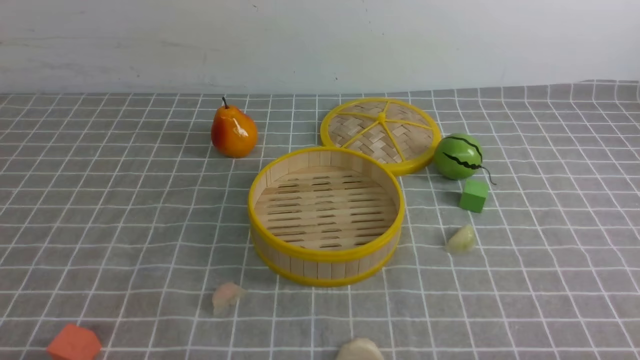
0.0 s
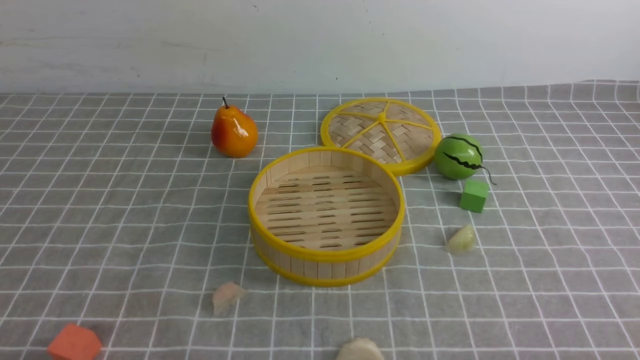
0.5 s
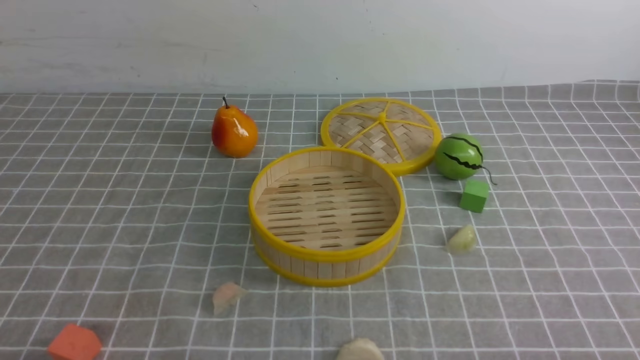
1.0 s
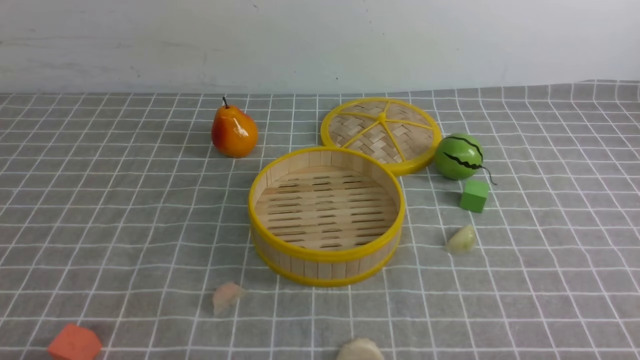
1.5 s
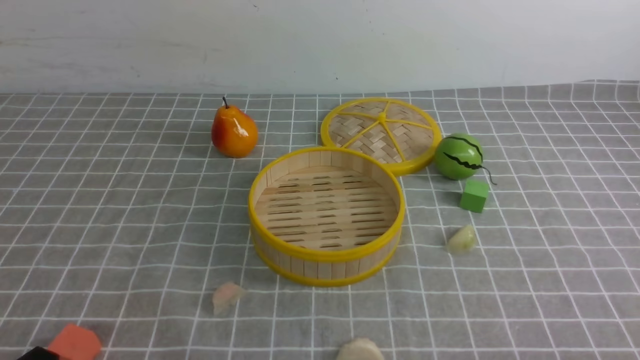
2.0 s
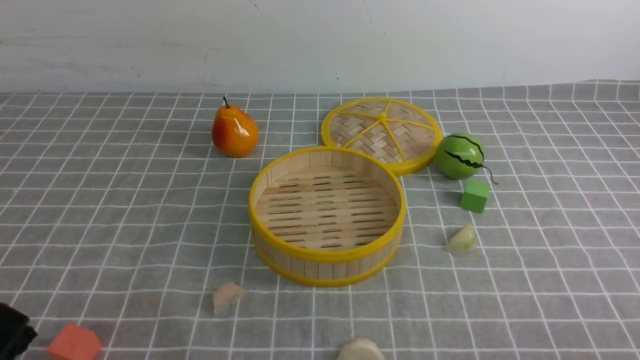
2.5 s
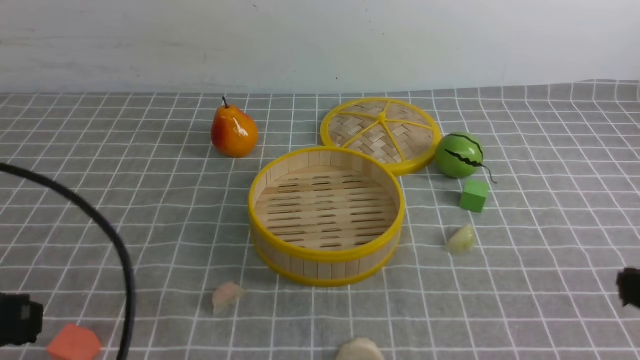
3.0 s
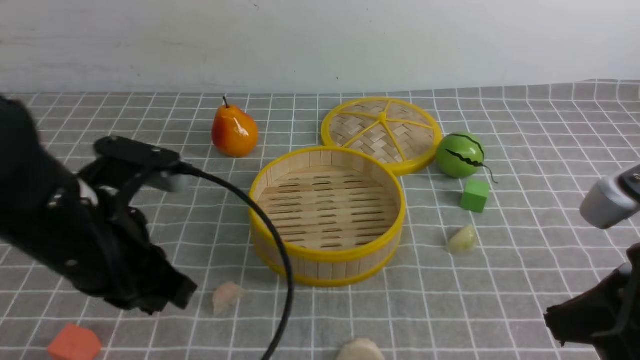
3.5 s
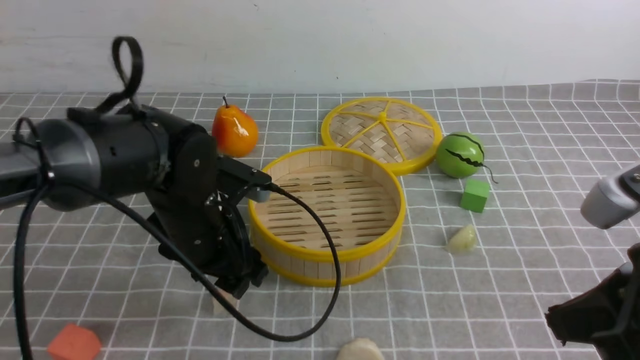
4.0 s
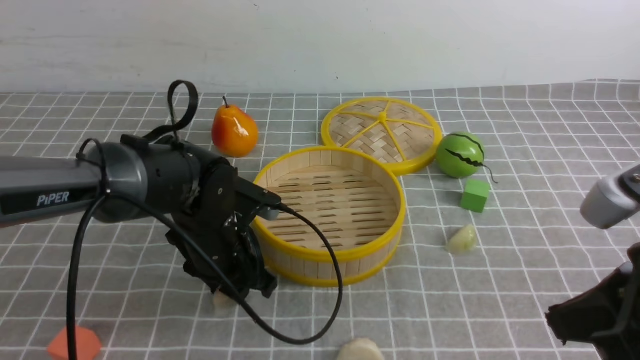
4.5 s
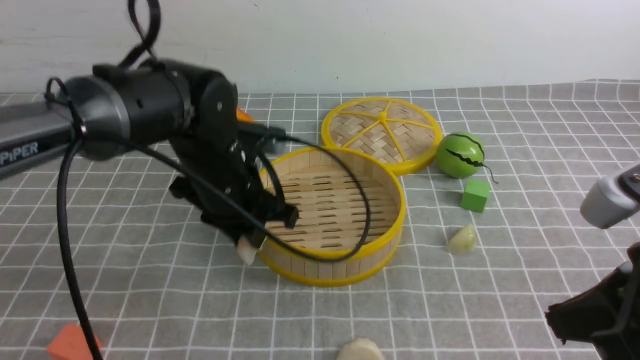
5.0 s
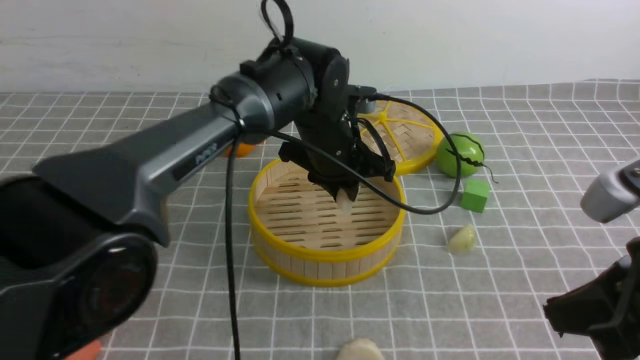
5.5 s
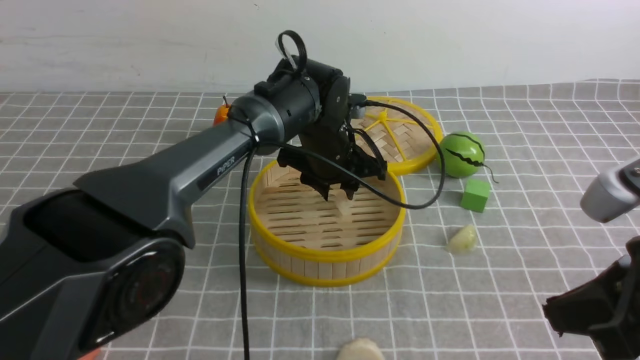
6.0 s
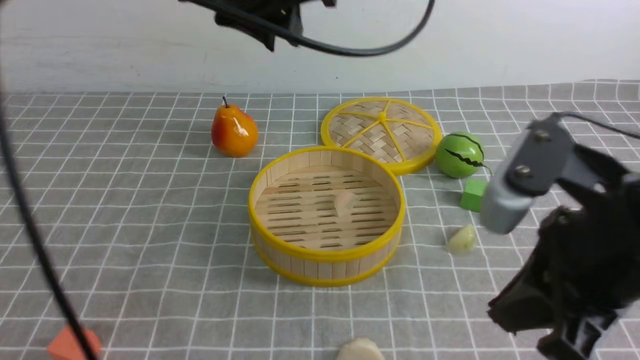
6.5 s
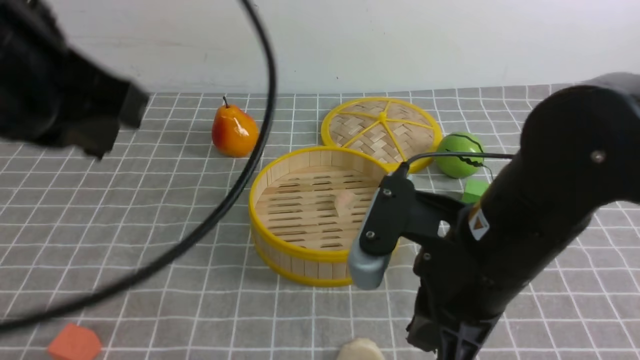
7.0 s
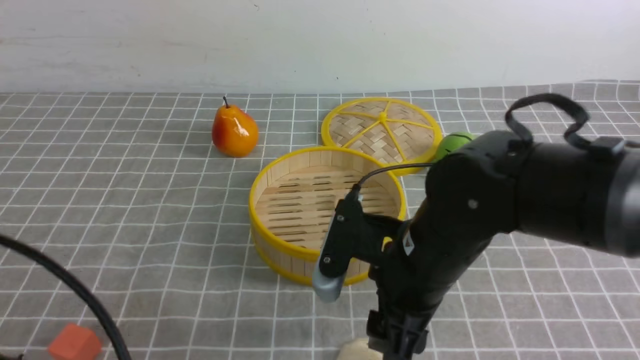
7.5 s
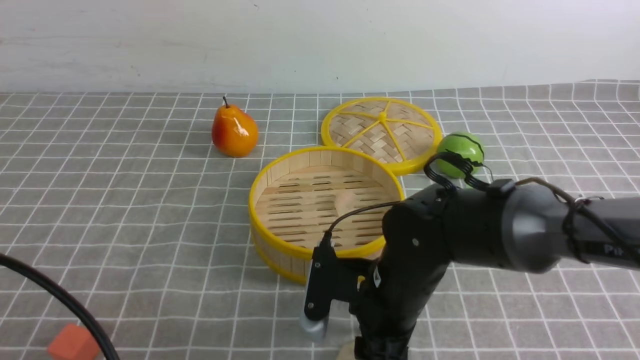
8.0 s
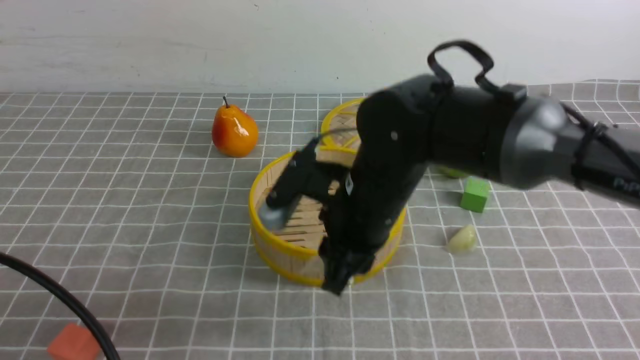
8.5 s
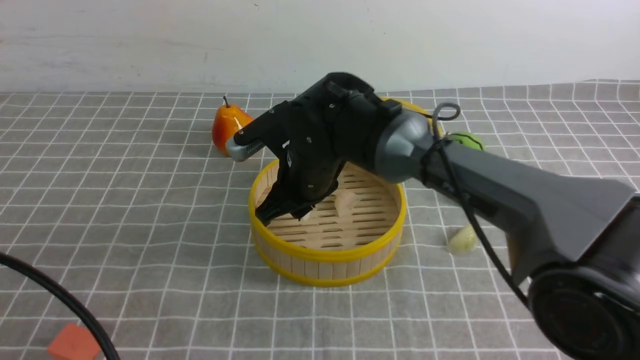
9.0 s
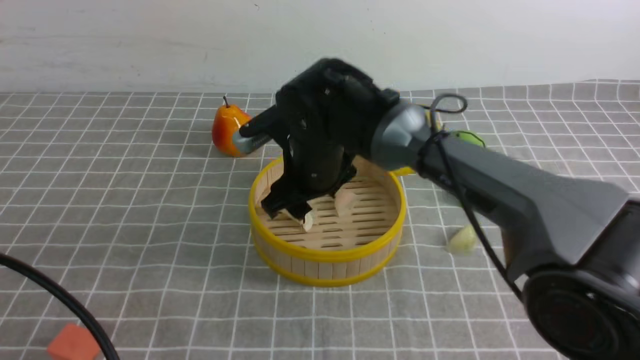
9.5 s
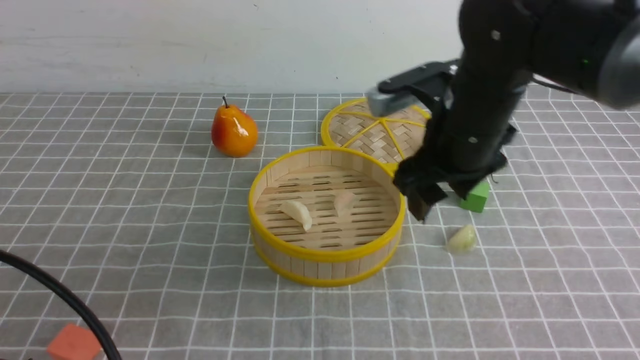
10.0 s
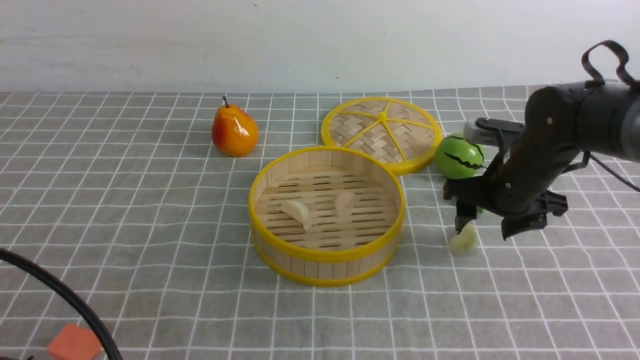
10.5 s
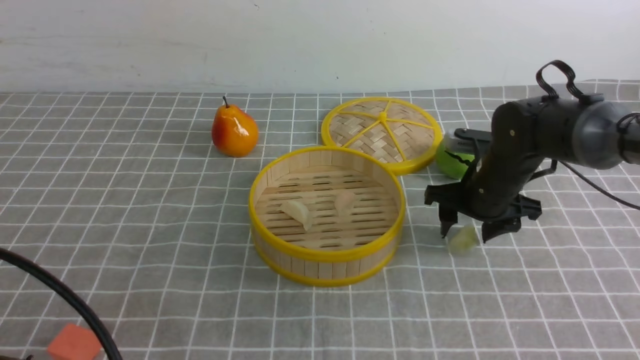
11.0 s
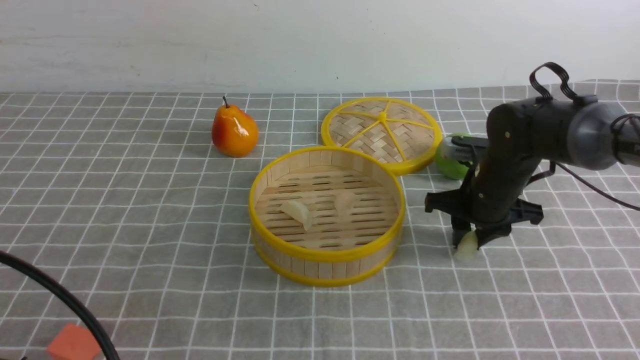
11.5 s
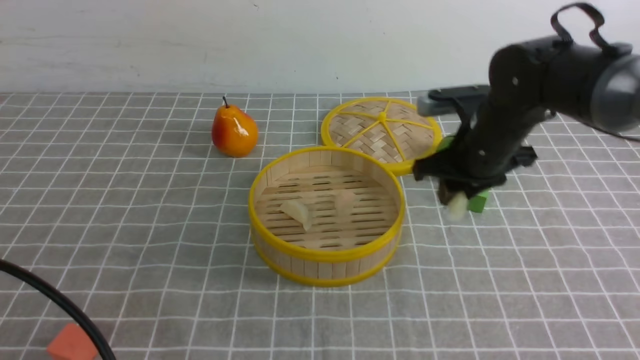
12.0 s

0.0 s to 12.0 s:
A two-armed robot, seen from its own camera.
Task of the whole recording: put the dumplings into the steamer on the table with the grey tablecloth.
Step, 0.0 to 4.5 s: use the left arm to grab a dumpling.
Step, 5.0 to 6.0 s: use the left arm to put the dumpling into the steamer.
Step, 6.5 to 8.0 s: use the right arm to grab a dumpling.
Step, 8.5 to 9.5 s: use the right arm to put the dumpling into the steamer.
Step, 10.0 to 11.5 s: use the right arm to grab a dumpling.
2.0 to 4.0 s: The right gripper travels upward, forward and to the left by approximately 20 cm, and closes. The left gripper travels forward and to the right by about 30 cm, and opens up.
4.0 to 6.0 s: The left gripper is displaced forward and to the right by some 15 cm, and closes and opens again.
6.0 to 8.0 s: The right gripper is displaced to the left, downward and forward by about 25 cm, and opens, while the left gripper is displaced backward and to the left by roughly 40 cm, and closes its fingers.
8.0 to 10.0 s: The right gripper goes approximately 15 cm upward, forward and to the right.
10.0 to 12.0 s: The right gripper travels downward by about 5 cm, and closes.

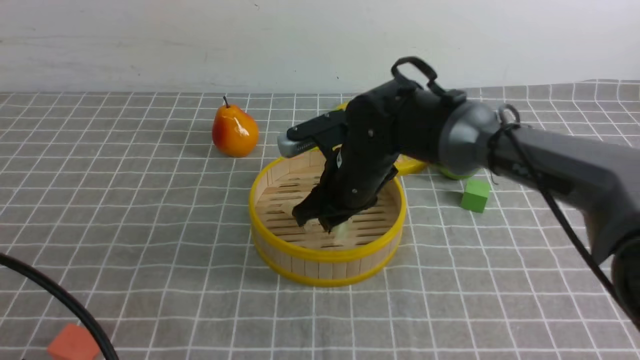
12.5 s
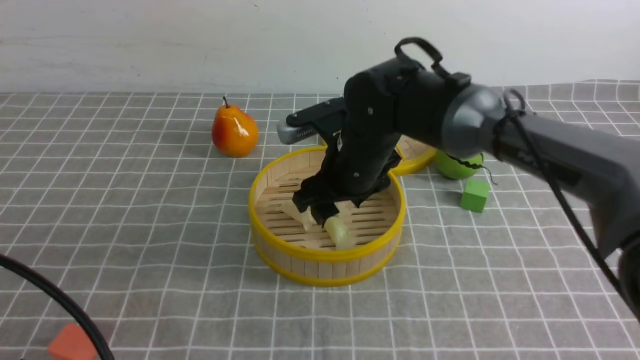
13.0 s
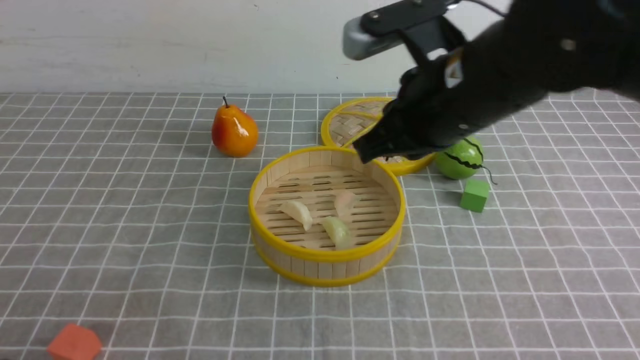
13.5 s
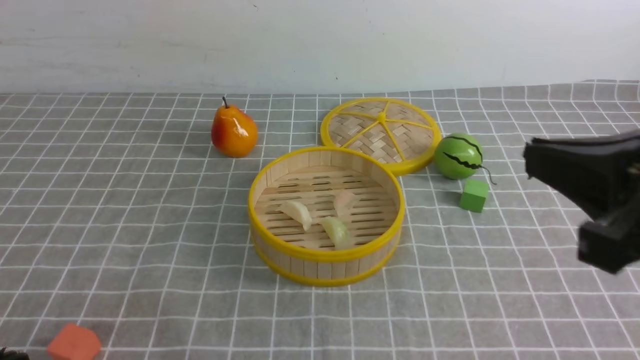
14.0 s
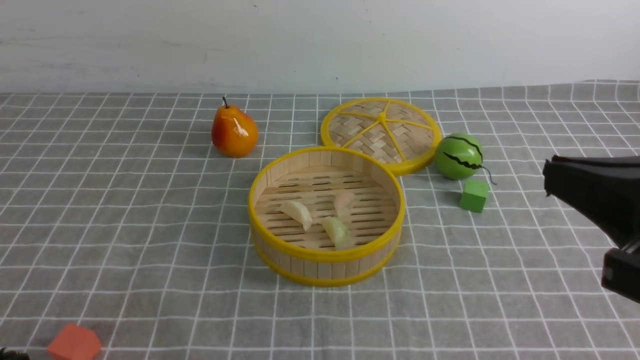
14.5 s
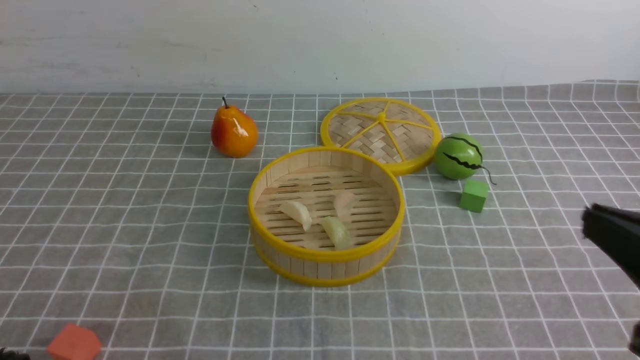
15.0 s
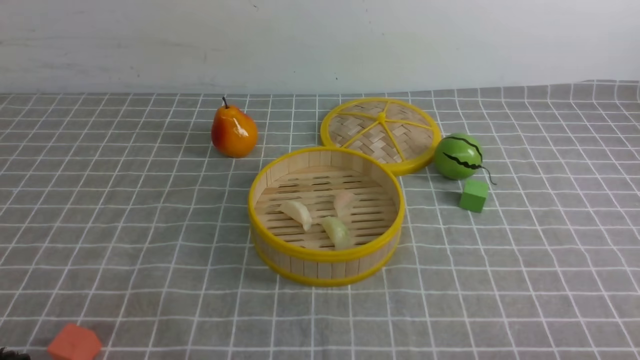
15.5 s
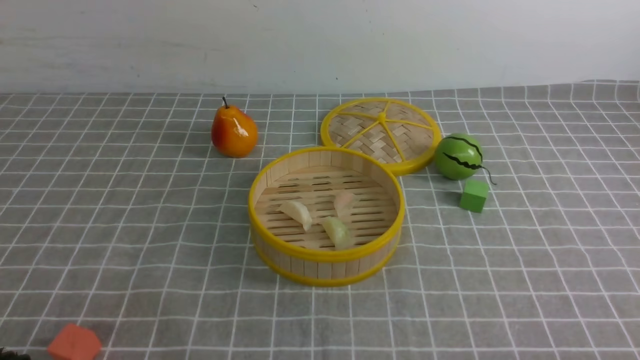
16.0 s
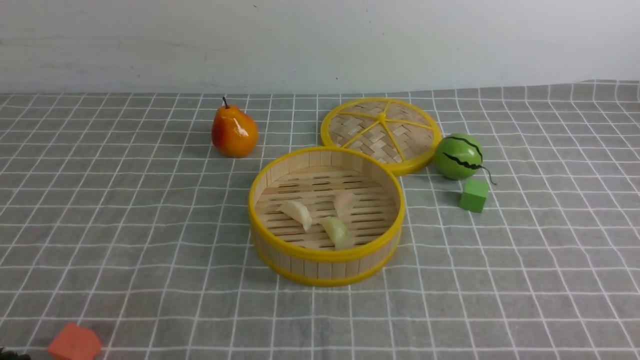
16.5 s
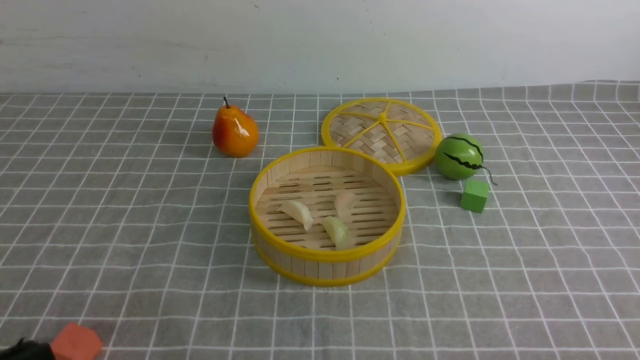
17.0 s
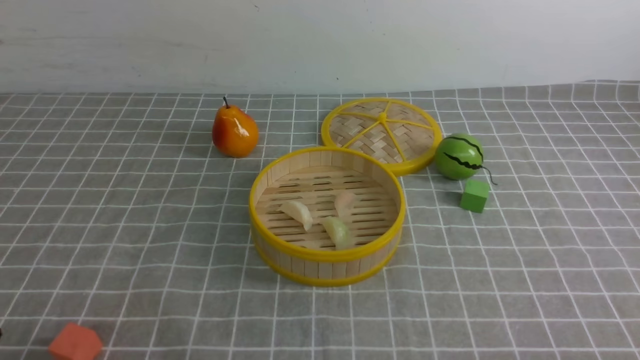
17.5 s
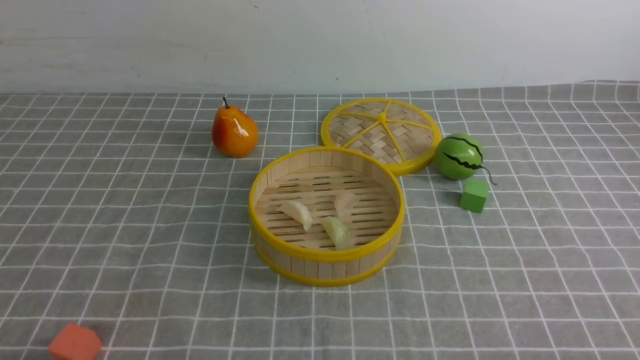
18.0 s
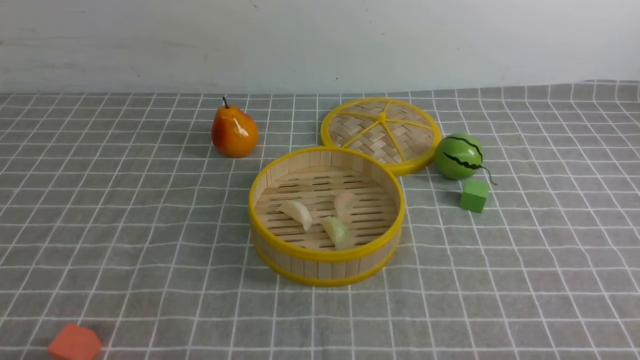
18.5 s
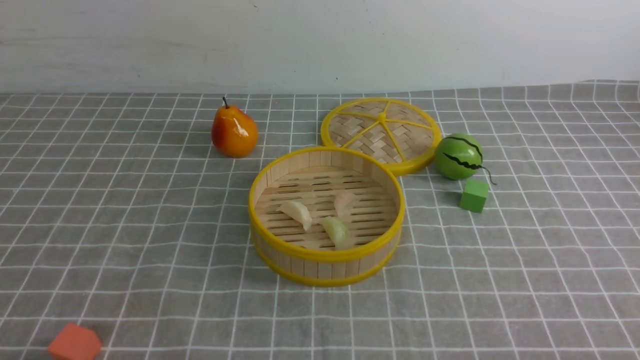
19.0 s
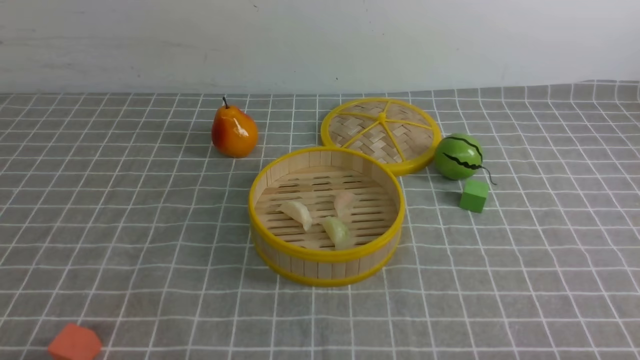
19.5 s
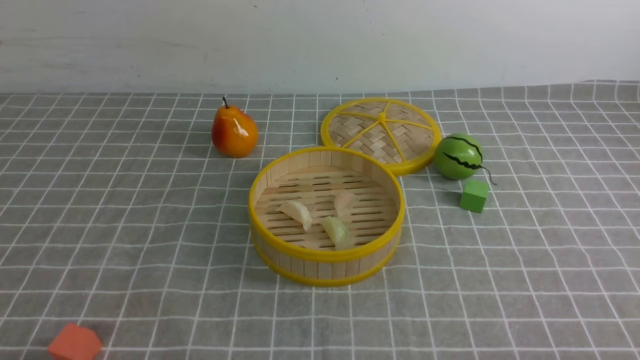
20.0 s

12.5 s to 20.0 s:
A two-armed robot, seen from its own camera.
Task of the whole recording: put the dumplings into the steamer on the table with the grey tablecloth.
12.5 to 14.5 s: The right gripper shifts about 35 cm backward, to the right and upward, and closes its fingers. Meanwhile the left gripper moves approximately 5 cm.
14.5 to 16.5 s: The right gripper travels downward and to the right by approximately 20 cm.
18.0 to 20.0 s: The two grippers keep their place.
